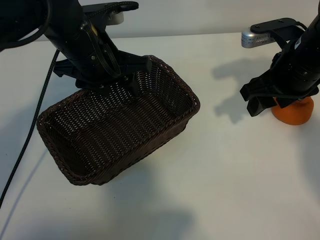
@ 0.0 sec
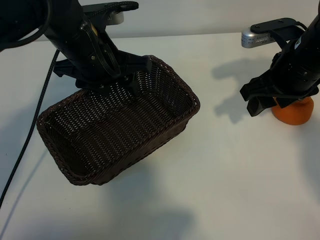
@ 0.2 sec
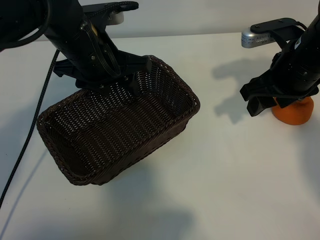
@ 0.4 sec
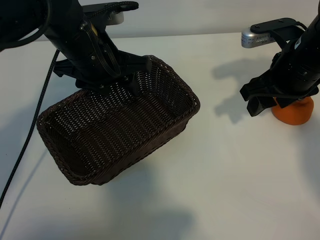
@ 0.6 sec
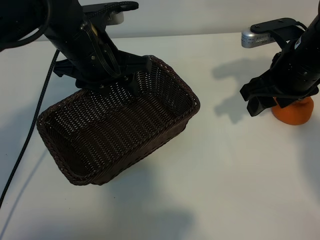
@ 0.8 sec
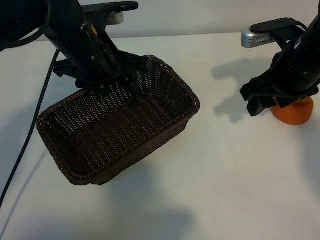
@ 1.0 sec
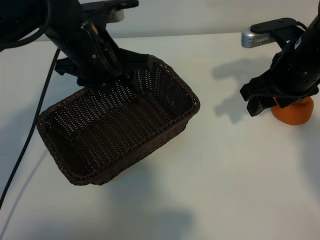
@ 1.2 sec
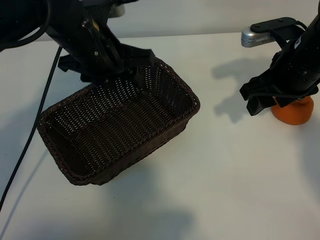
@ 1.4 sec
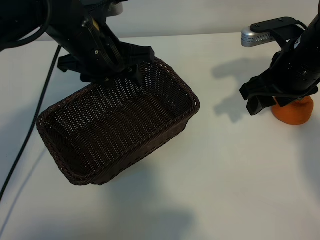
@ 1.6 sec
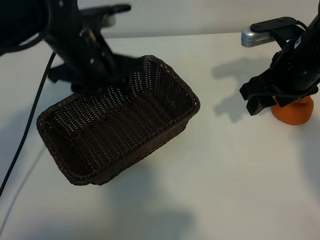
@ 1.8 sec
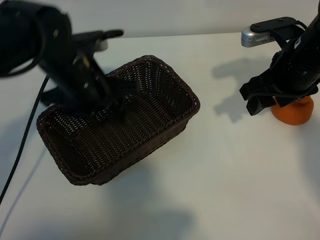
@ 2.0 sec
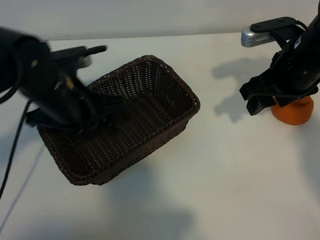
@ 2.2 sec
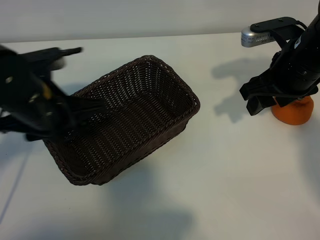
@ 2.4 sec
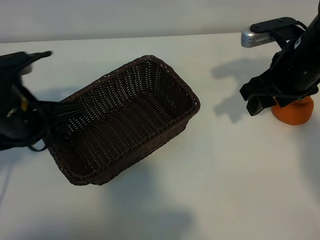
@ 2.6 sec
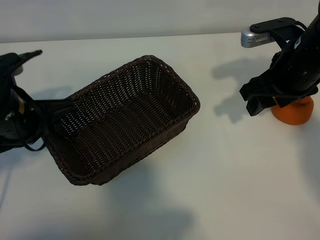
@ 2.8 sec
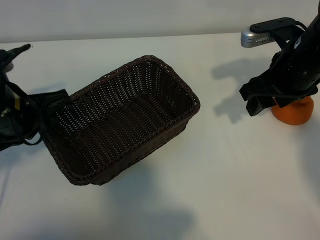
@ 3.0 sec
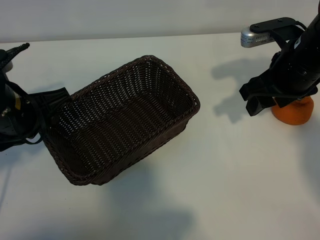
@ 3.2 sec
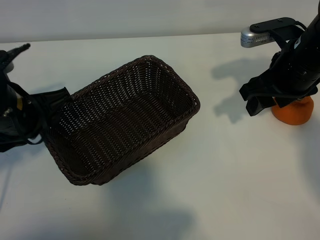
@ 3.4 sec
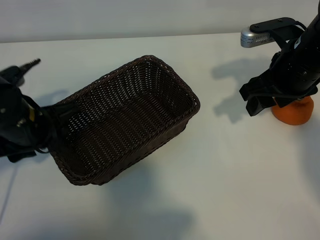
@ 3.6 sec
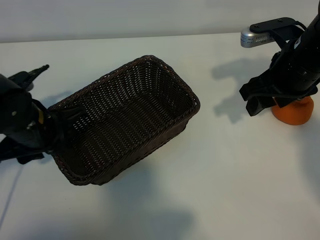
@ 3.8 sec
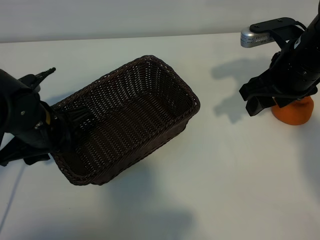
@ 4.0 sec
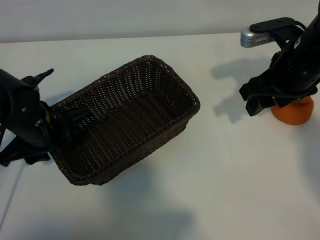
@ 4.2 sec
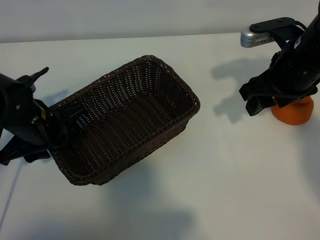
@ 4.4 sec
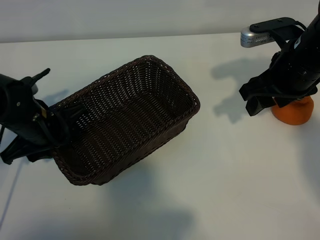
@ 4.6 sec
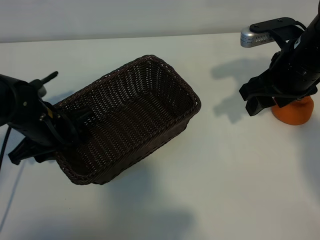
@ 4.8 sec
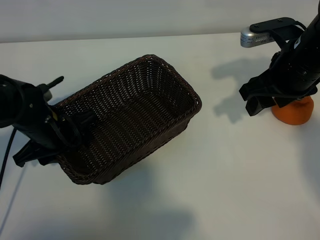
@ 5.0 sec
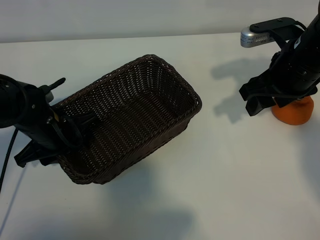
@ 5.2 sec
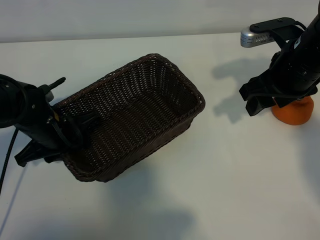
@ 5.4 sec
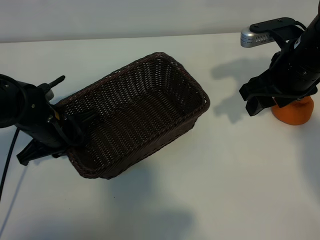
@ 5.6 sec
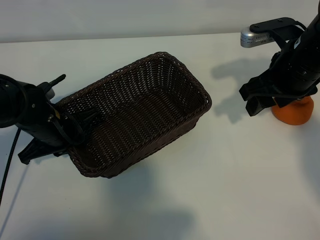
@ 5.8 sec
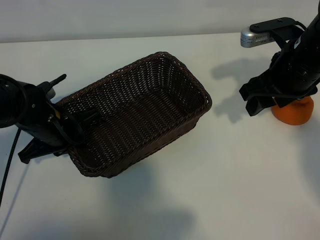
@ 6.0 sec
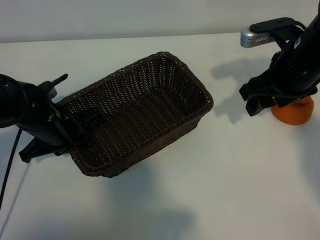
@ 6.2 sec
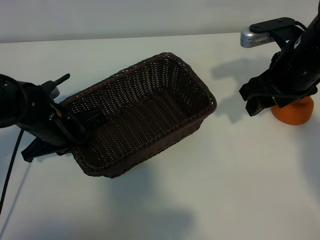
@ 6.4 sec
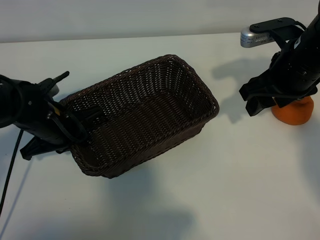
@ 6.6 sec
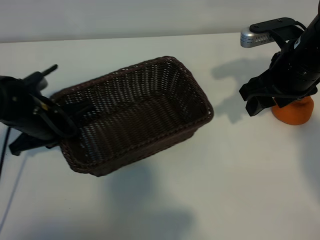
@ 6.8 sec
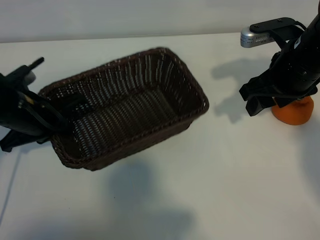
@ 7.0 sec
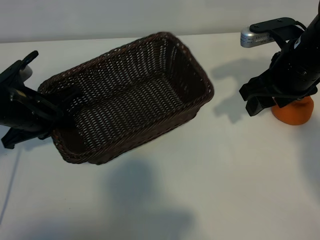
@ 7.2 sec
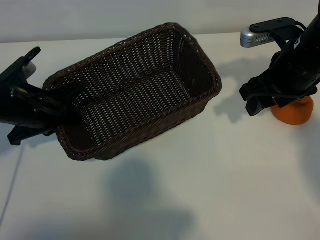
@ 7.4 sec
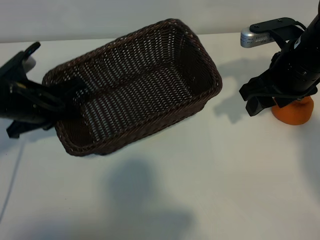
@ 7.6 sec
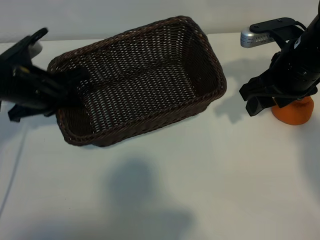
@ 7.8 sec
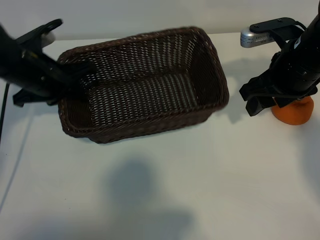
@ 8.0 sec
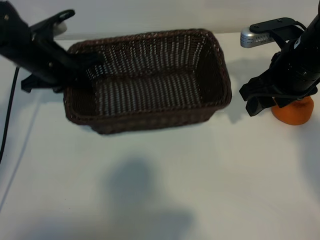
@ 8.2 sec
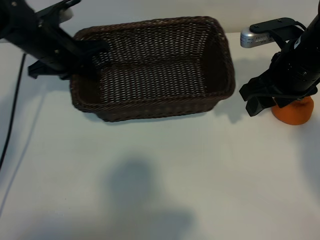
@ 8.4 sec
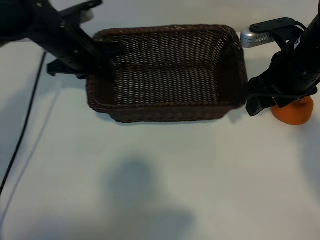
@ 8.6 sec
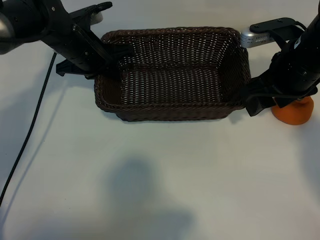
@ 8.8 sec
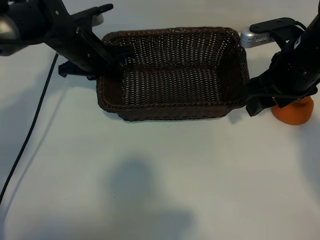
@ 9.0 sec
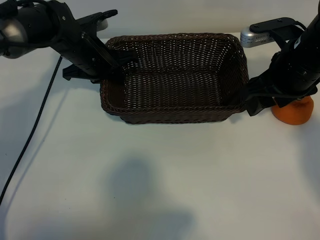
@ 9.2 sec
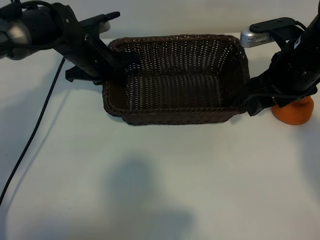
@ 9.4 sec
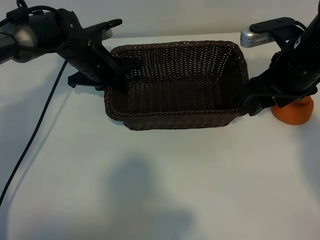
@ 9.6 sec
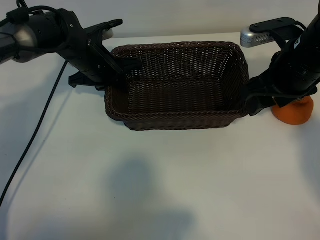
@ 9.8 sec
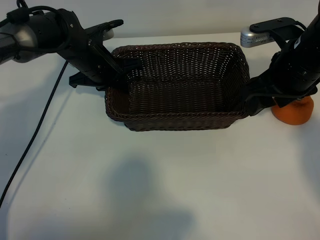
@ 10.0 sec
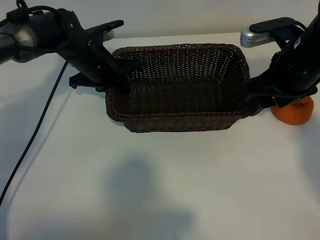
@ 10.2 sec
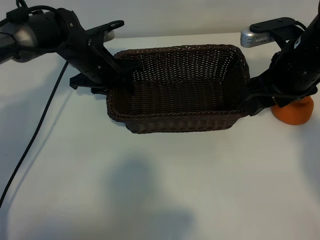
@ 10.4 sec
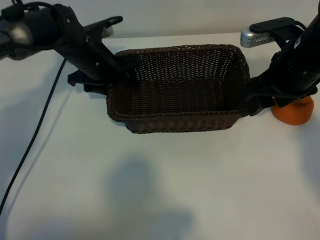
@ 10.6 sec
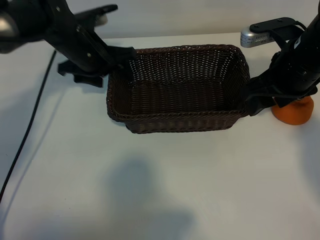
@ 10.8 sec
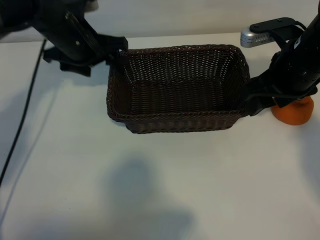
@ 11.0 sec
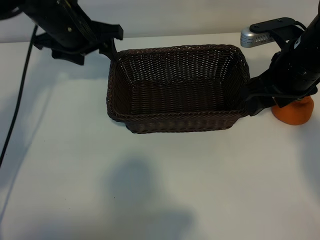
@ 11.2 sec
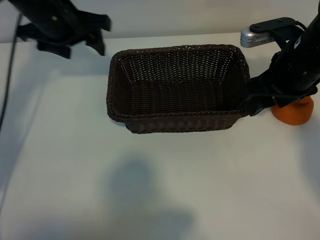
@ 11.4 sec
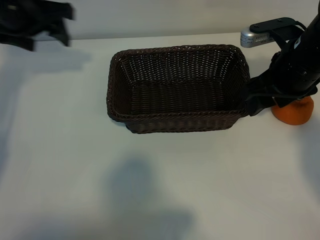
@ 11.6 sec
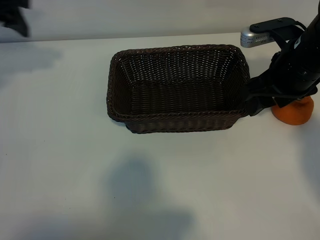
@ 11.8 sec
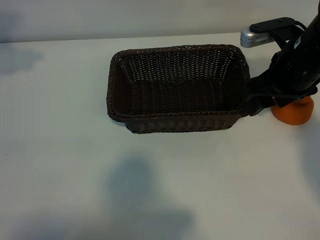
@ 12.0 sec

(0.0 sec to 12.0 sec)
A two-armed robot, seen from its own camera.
Task of the whole recording: pick up the orange and put it into the basket.
Step, 1.2 sec - 5.6 sec: Grasp the basket with left gripper.
Step, 5.8 sec - 10.2 sec: Place the basket in the center of view with left gripper.

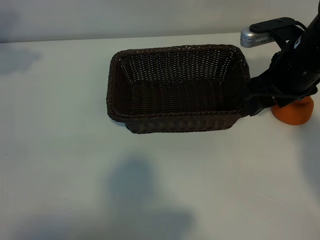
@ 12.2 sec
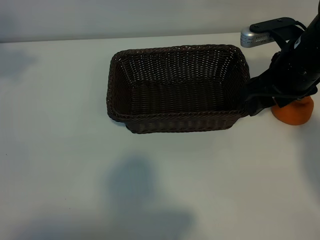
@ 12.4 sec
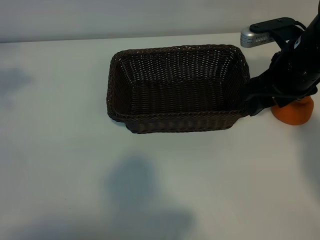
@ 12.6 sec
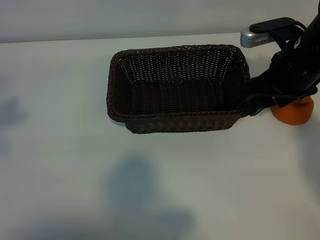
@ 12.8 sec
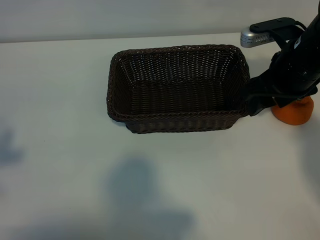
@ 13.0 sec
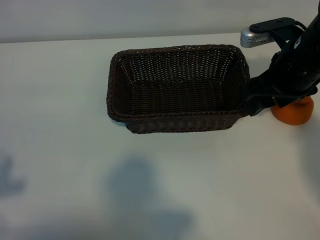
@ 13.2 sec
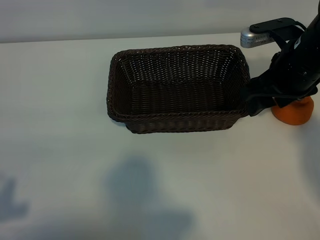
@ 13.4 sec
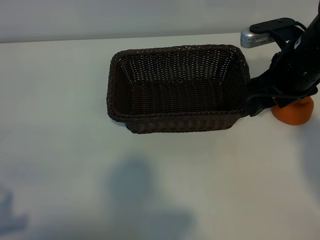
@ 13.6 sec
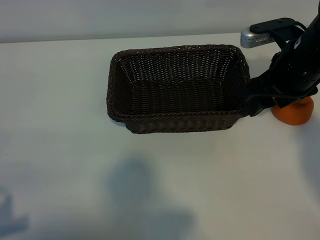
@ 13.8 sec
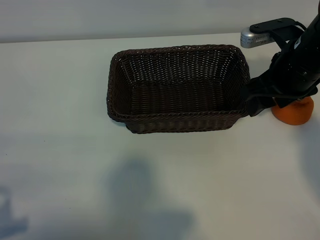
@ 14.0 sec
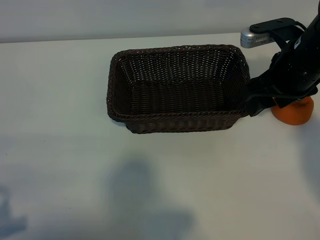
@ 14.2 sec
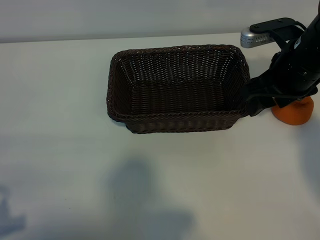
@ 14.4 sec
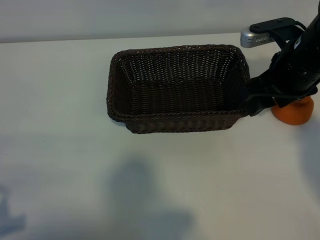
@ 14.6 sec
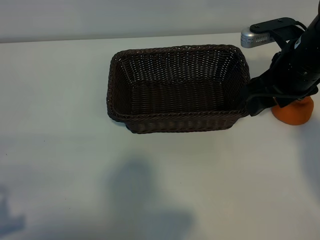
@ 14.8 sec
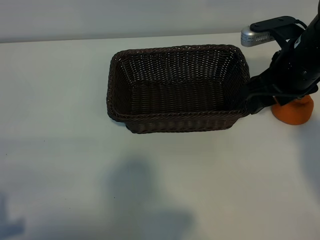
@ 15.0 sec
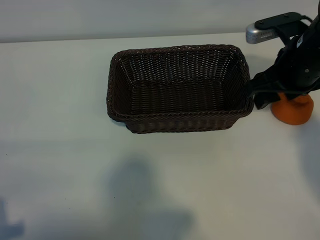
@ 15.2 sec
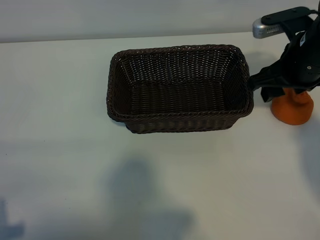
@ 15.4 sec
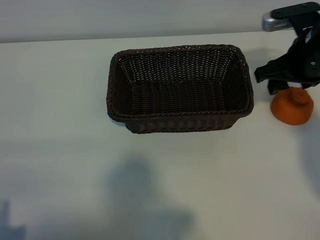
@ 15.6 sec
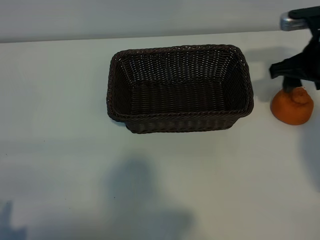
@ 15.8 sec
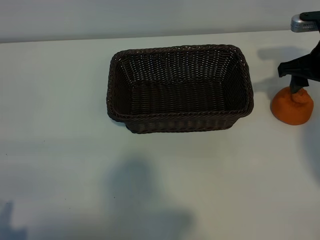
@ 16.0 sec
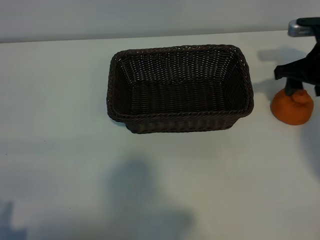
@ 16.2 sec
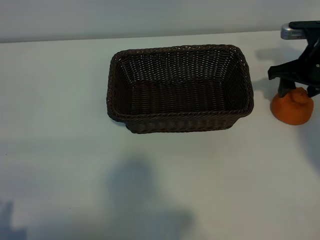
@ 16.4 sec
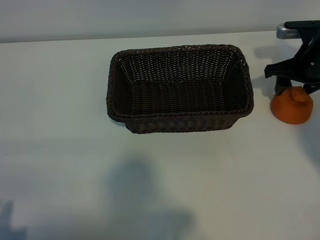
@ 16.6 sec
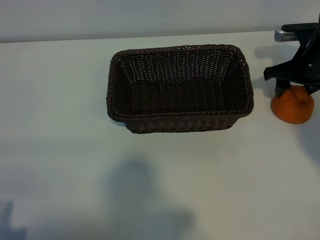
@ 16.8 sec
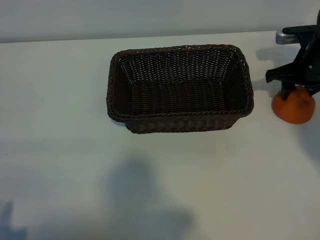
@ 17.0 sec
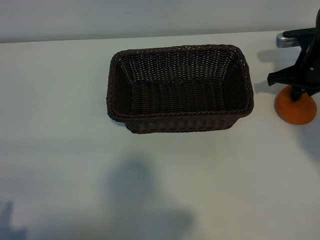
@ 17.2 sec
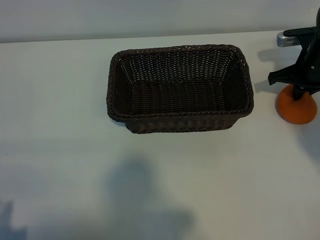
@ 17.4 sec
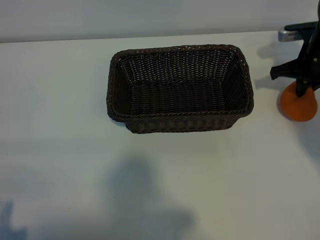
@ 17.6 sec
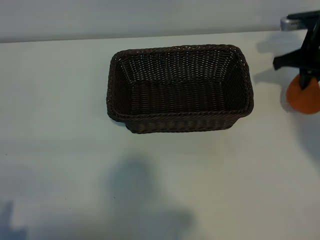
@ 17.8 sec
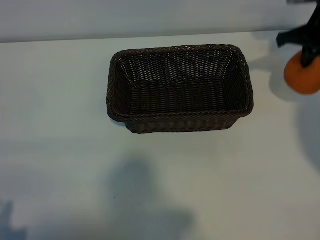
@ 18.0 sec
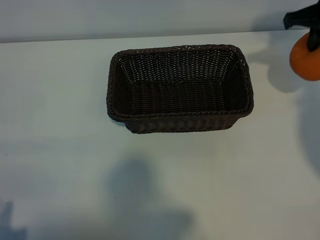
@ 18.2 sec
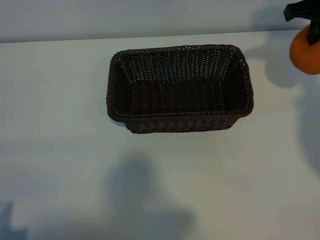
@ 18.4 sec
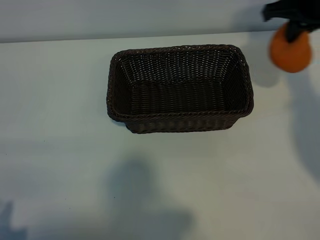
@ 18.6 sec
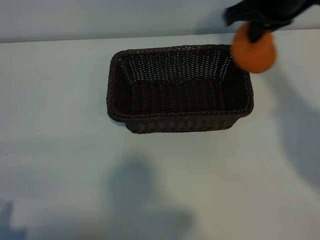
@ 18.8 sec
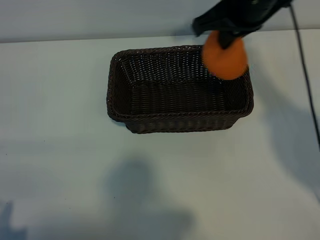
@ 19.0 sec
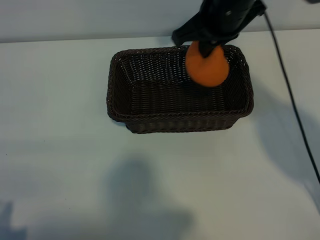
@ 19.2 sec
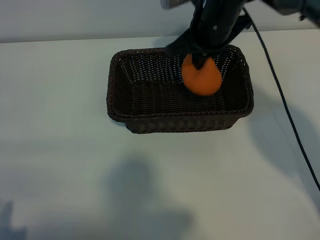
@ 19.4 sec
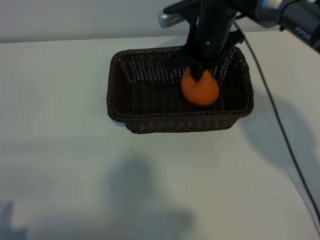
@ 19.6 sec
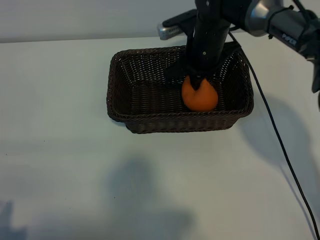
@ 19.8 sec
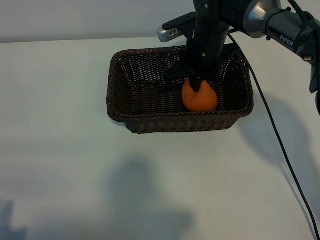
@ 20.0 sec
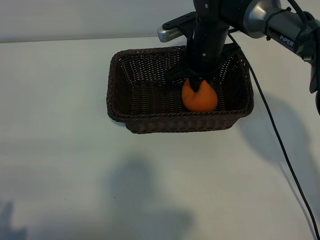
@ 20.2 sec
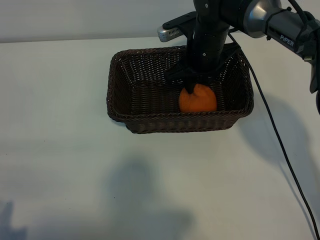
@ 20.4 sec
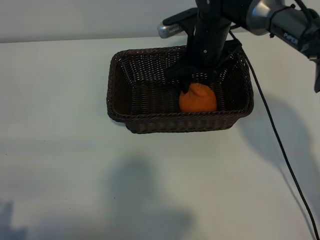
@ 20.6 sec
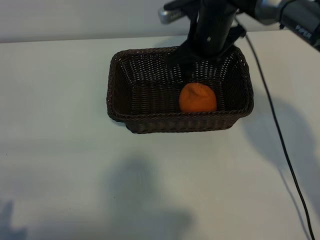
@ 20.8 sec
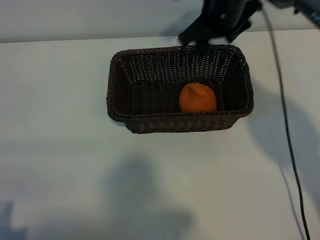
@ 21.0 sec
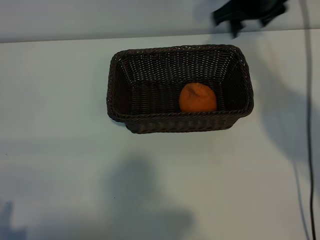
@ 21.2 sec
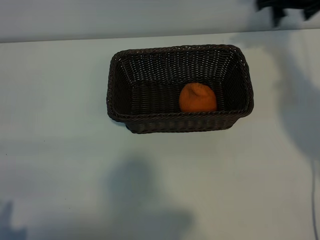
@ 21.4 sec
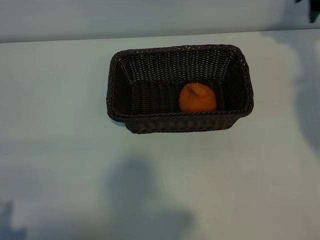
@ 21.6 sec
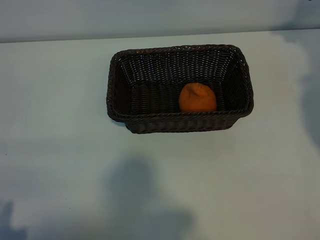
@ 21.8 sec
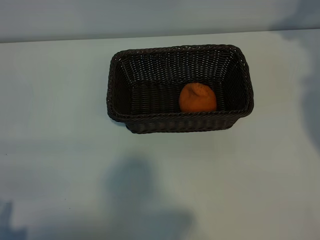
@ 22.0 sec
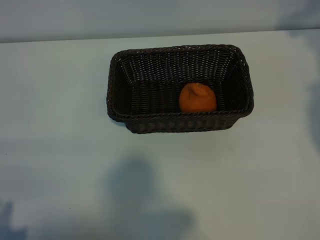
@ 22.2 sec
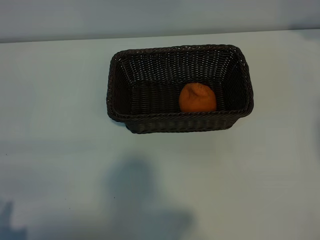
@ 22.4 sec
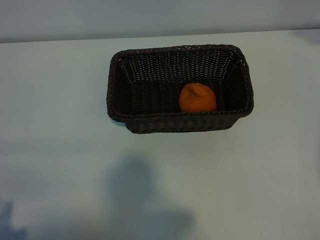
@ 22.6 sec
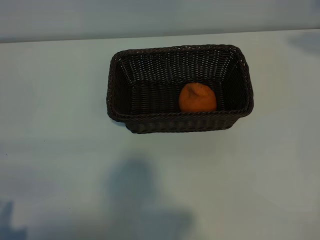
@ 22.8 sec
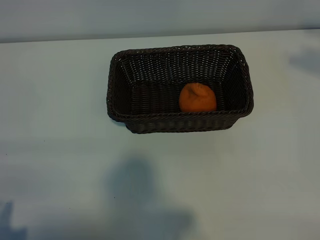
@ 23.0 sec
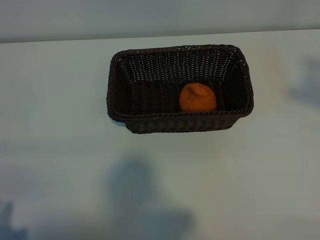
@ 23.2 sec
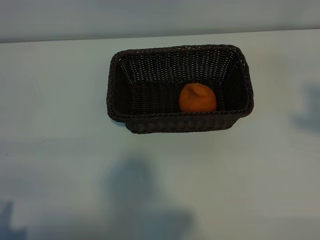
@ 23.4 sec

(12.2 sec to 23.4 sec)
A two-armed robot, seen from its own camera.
Task of the whole recording: pick up the orange and put it into the basket.
Step, 12.2 sec - 17.2 sec: Grasp the orange with right gripper.
Step, 17.4 sec - 20.4 sec: Place the orange in the basket with right gripper.
